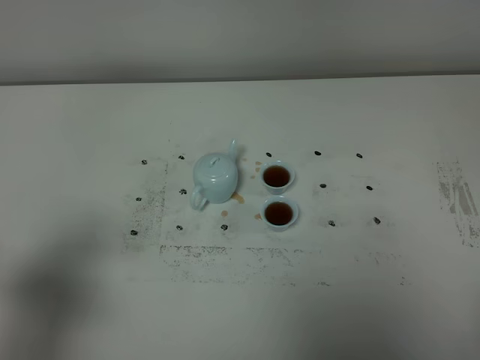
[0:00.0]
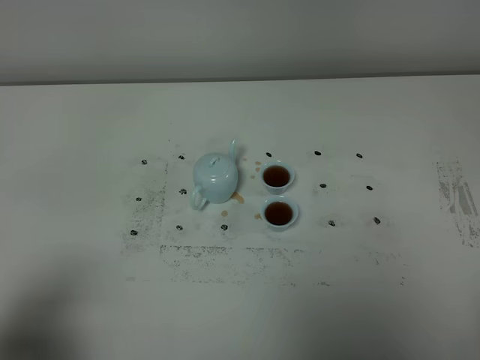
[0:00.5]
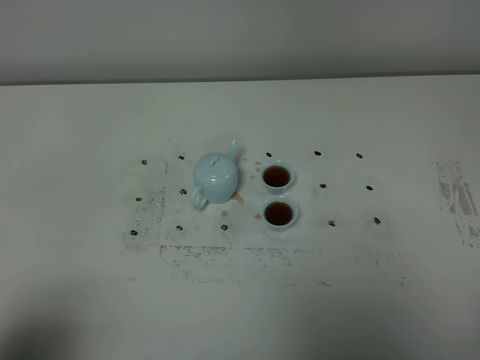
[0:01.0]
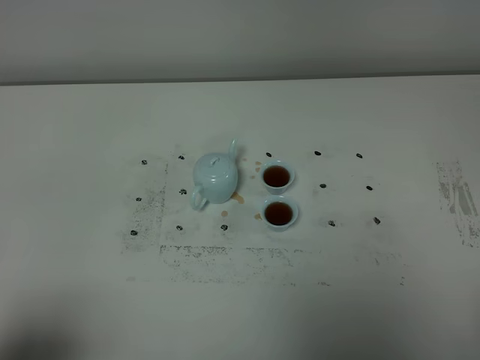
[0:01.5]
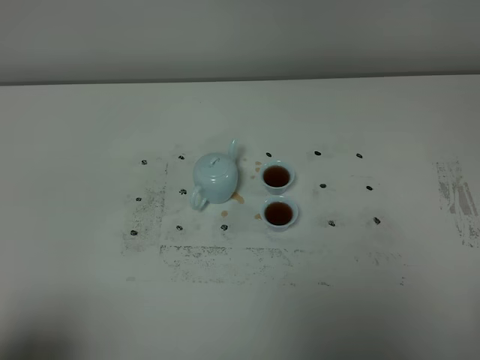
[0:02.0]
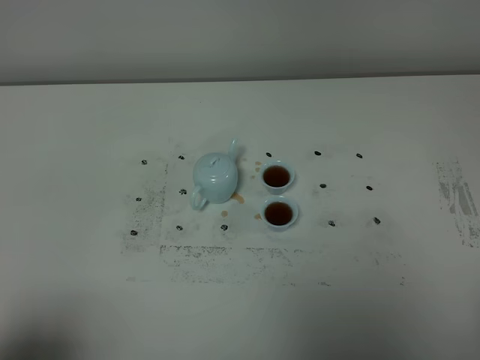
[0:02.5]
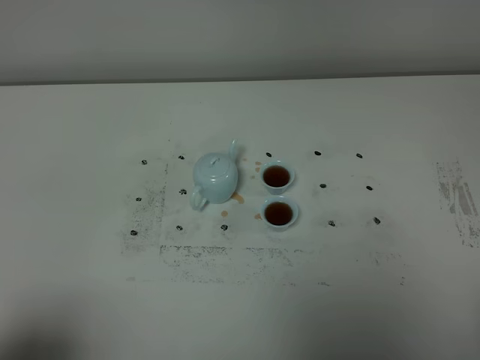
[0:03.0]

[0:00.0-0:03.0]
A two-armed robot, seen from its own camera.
Task of the whole recording: grasp the blue porcelain teapot and pour the tea into the two blue porcelain teacups one by one, put the blue porcelain teapot back in its original place.
0:00.0 to 0:01.5: The left gripper goes some 10 cm backward.
0:01.5 to 0:03.0: Neither gripper changes place.
